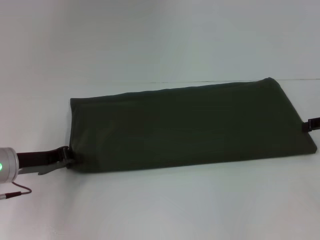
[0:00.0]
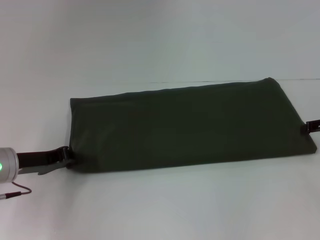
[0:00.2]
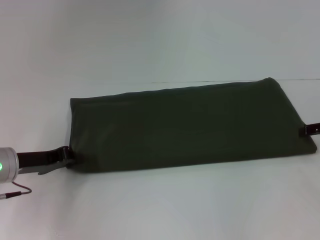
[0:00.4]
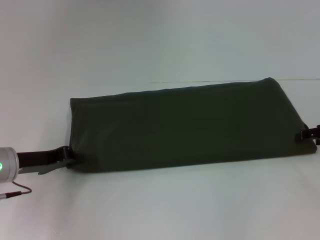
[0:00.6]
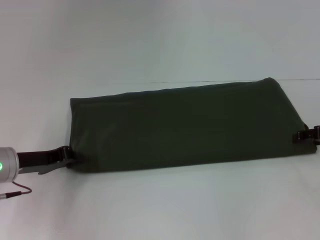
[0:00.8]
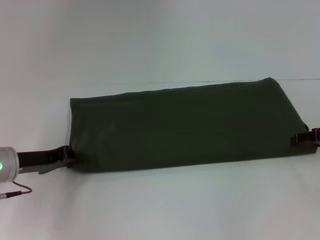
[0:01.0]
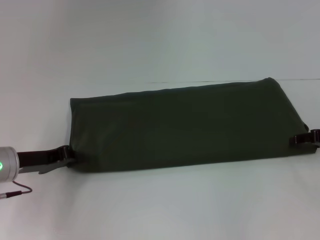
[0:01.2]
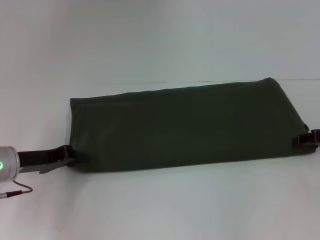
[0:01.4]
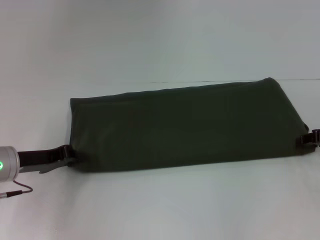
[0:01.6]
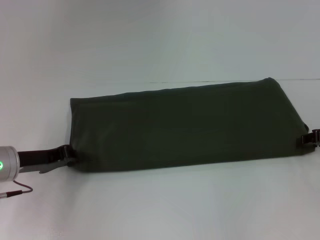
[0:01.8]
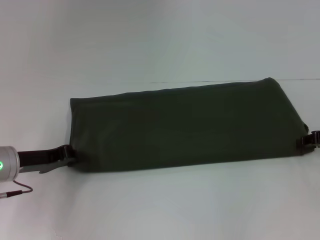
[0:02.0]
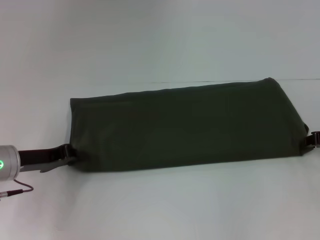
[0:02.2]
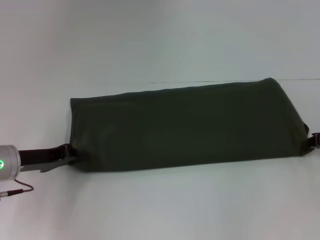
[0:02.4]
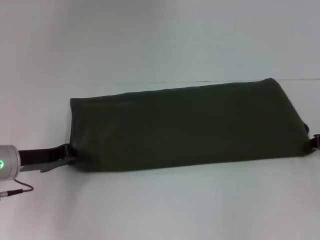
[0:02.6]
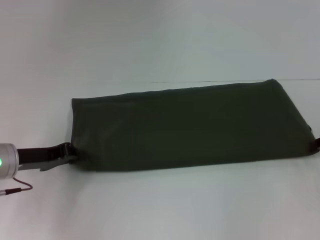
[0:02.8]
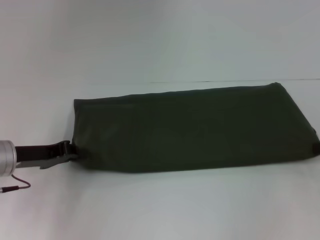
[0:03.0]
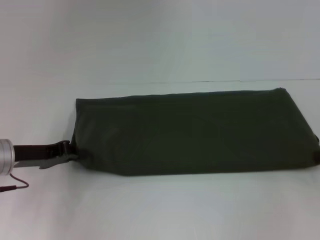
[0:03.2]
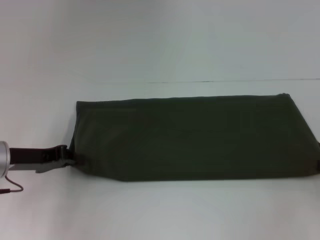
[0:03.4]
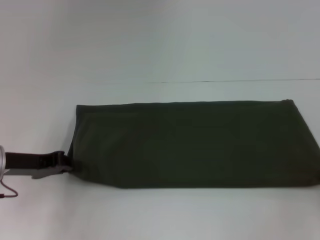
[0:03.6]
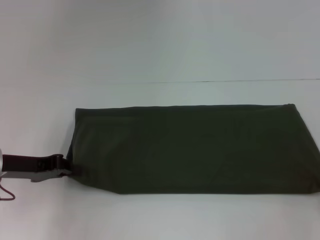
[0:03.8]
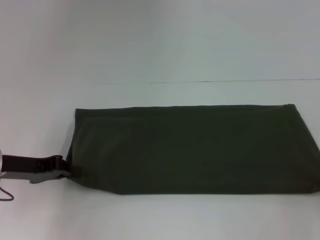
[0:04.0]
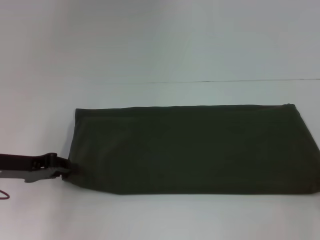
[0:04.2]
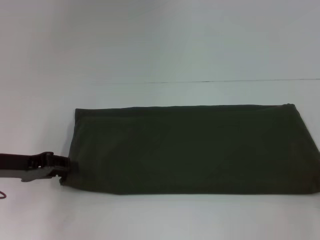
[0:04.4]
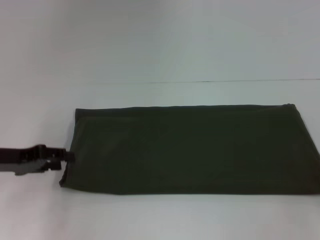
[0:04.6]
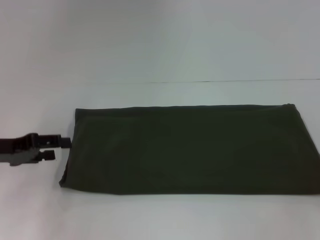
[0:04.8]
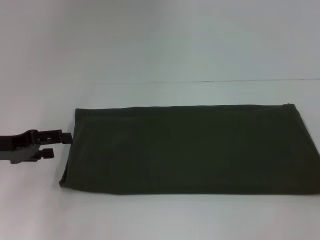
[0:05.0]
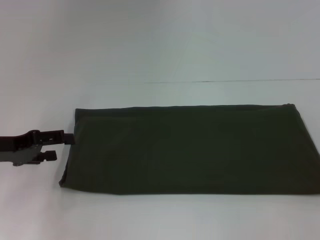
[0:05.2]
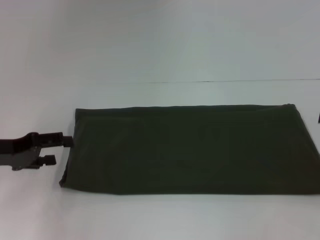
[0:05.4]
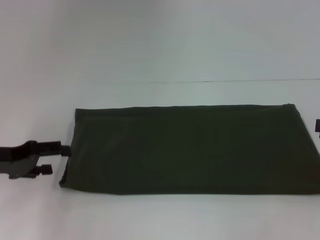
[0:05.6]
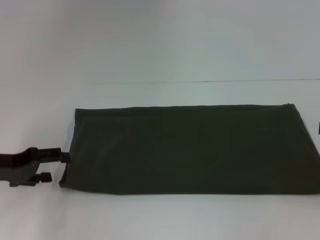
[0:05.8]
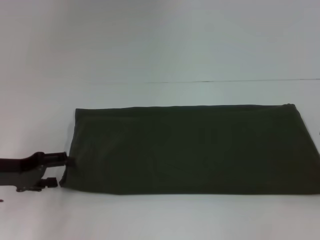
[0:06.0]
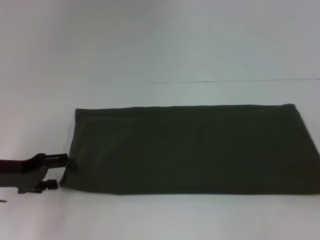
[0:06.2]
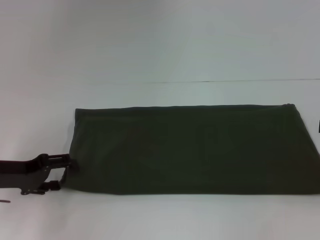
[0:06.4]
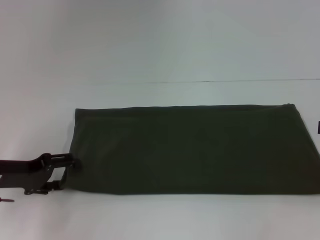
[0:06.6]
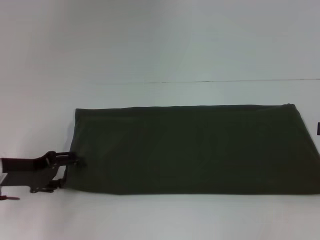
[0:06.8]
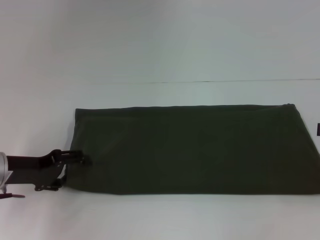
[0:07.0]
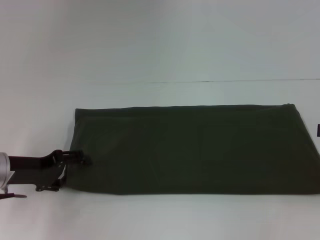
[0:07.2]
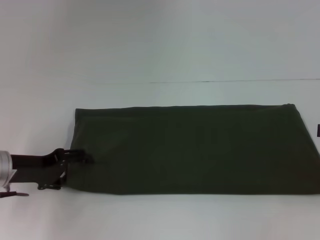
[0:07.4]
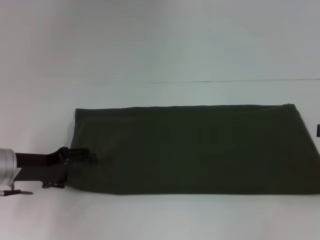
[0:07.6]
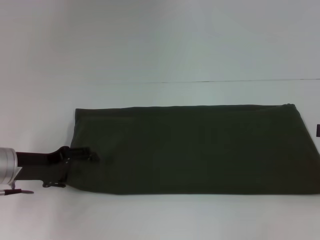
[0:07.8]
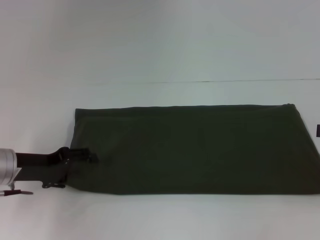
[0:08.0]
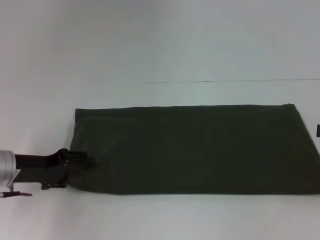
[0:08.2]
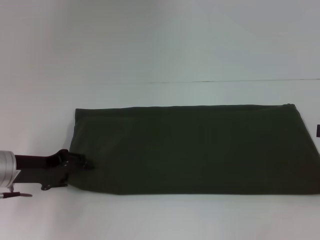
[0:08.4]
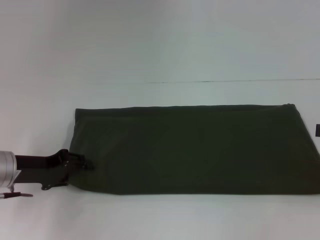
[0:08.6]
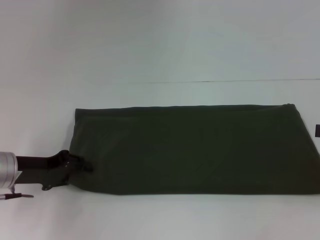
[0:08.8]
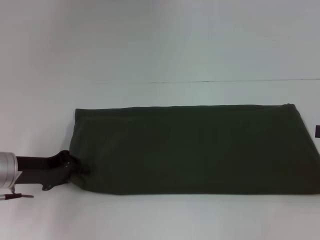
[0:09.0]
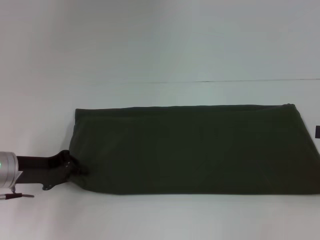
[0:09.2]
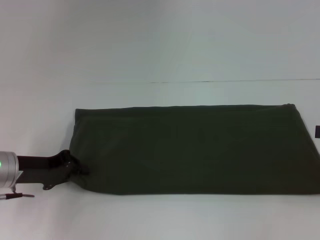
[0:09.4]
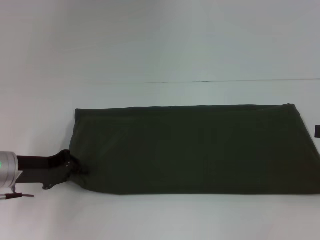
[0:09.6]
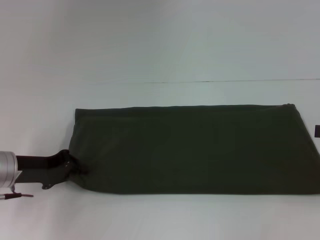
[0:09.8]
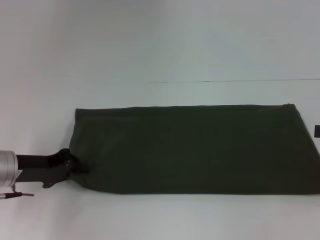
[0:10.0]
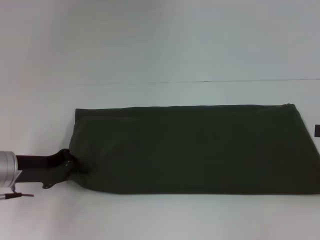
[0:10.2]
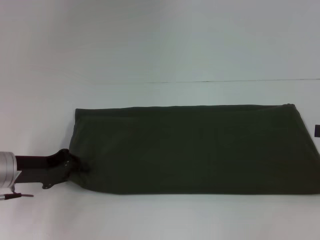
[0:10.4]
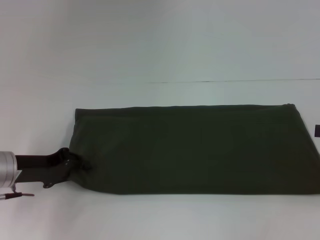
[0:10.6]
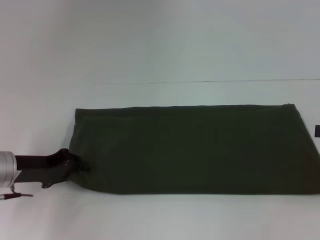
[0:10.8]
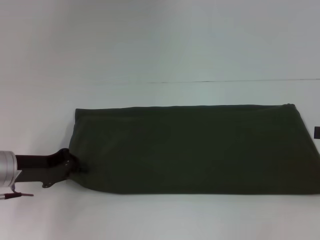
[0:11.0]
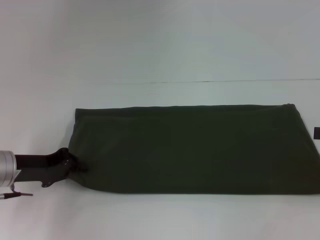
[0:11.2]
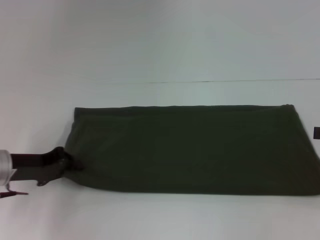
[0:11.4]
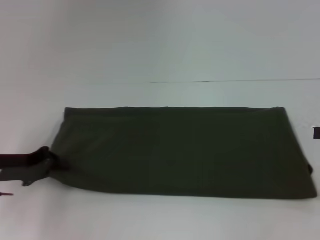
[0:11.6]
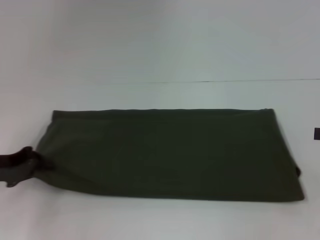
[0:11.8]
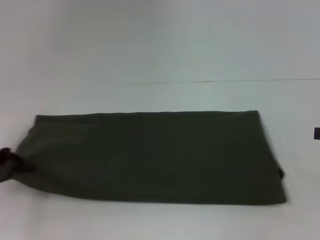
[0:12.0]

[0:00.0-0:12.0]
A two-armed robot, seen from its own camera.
Step, 0:00.0 to 0:04.4: Pull the clothes with your left hand.
Step, 0:00.0 to 0:04.4: Pull the clothes with your right hand.
0:00.0 to 0:01.6: The grippers make only small movements.
0:01.6 to 0:03.0: The right gripper closes up.
0:03.0 to 0:04.4: The right gripper goes some 5 cm backward.
0:04.4 to 0:06.0: The left gripper opens.
0:06.0 to 0:07.6: The grippers make only small movements.
0:07.6 to 0:09.0: The left gripper closes its fingers.
0:09.0 to 0:10.4: Both grippers stay put.
0:10.4 to 0:12.0: The left gripper moves to the left, some 10 cm.

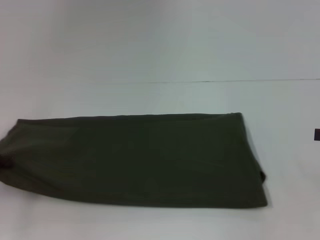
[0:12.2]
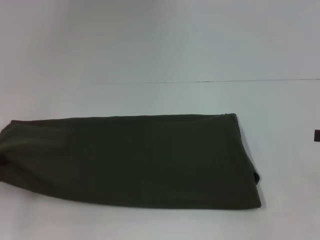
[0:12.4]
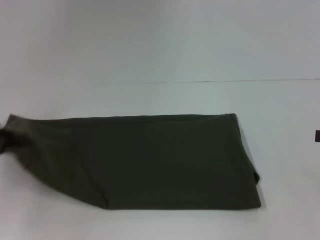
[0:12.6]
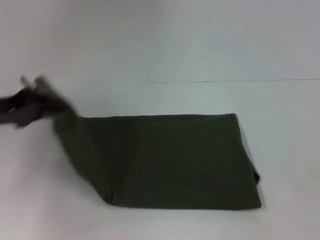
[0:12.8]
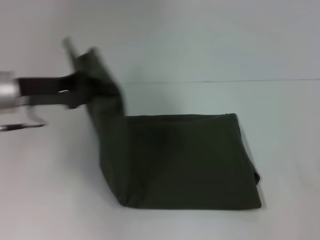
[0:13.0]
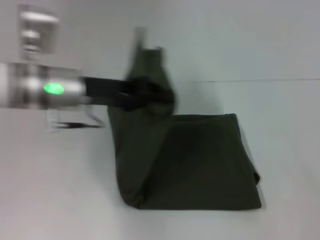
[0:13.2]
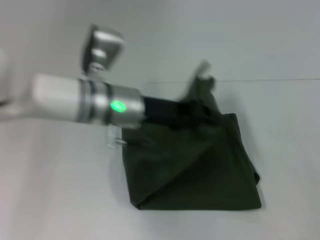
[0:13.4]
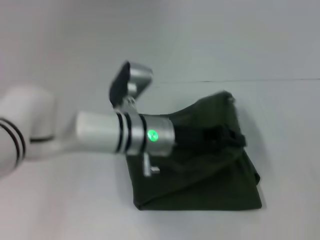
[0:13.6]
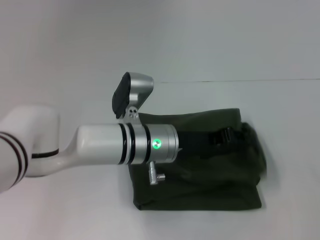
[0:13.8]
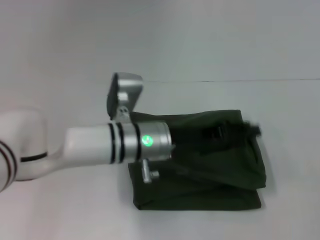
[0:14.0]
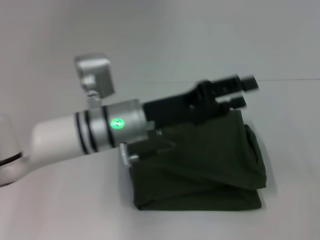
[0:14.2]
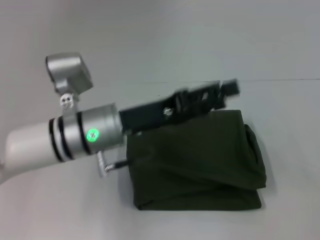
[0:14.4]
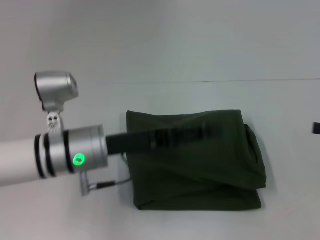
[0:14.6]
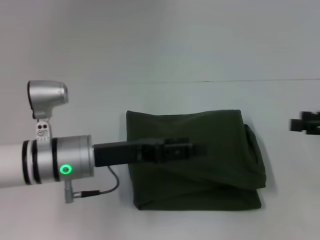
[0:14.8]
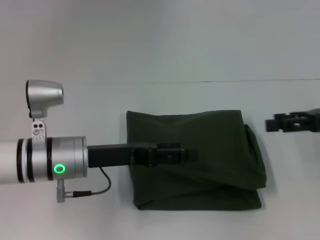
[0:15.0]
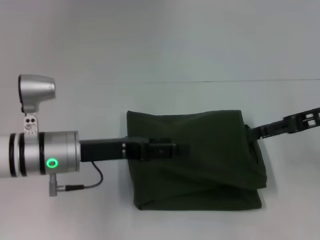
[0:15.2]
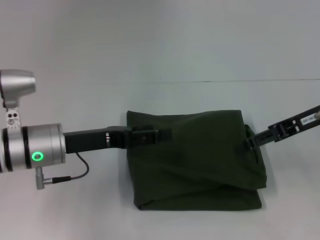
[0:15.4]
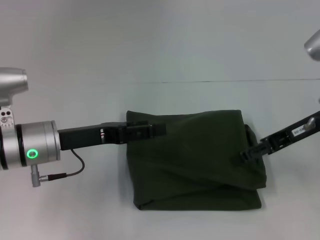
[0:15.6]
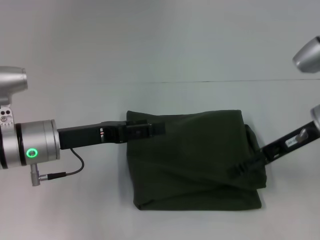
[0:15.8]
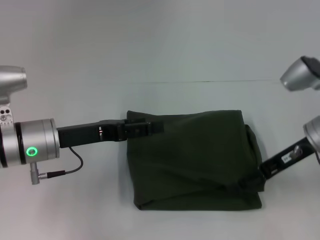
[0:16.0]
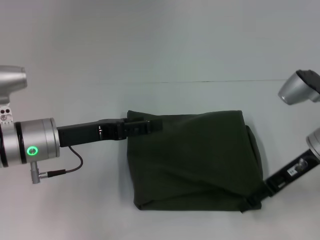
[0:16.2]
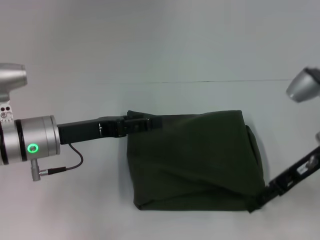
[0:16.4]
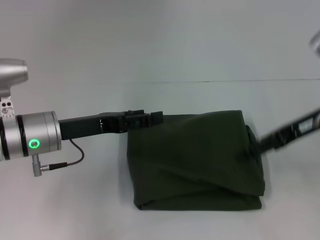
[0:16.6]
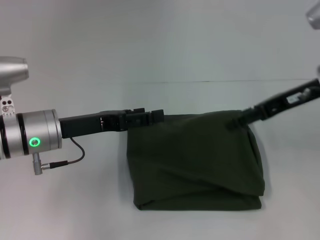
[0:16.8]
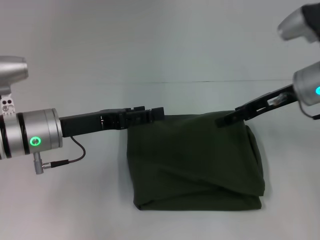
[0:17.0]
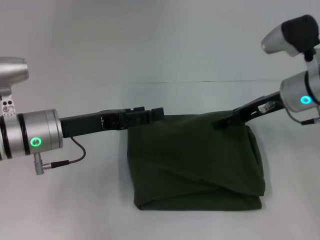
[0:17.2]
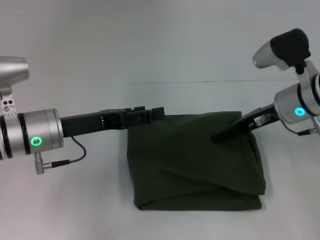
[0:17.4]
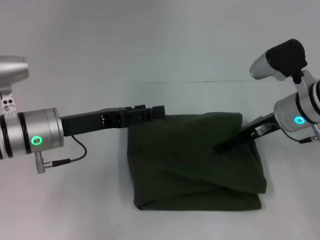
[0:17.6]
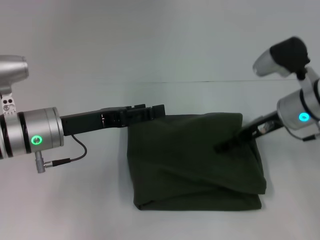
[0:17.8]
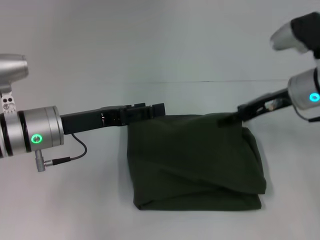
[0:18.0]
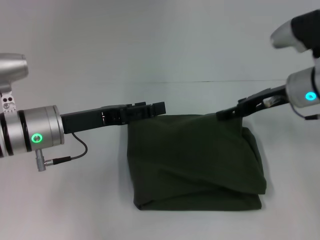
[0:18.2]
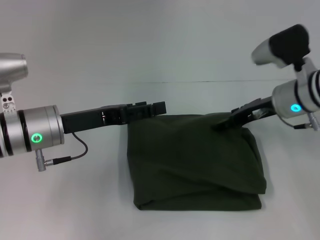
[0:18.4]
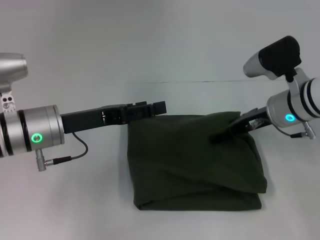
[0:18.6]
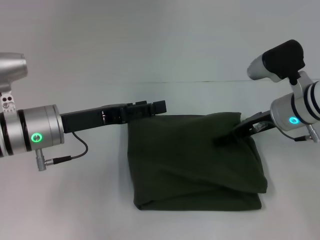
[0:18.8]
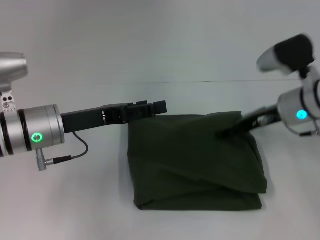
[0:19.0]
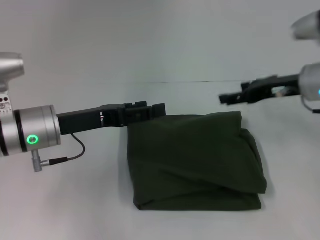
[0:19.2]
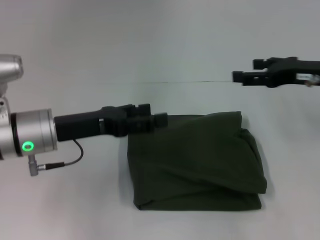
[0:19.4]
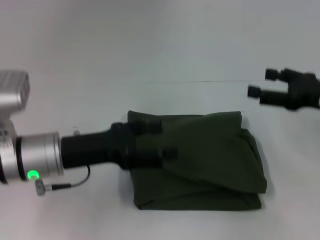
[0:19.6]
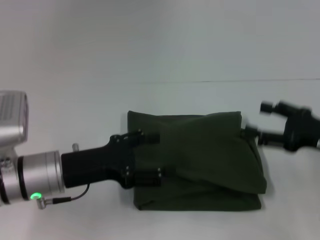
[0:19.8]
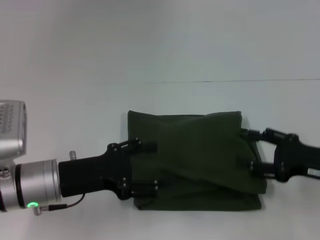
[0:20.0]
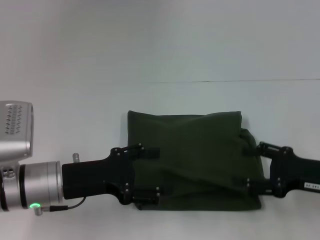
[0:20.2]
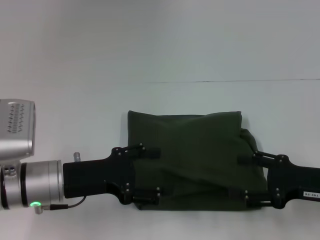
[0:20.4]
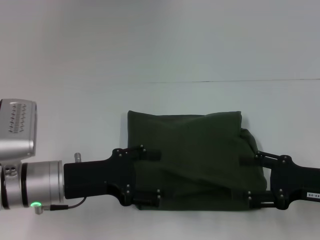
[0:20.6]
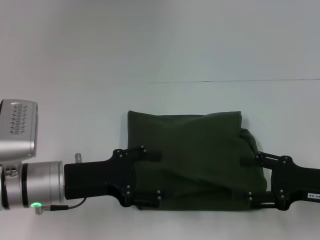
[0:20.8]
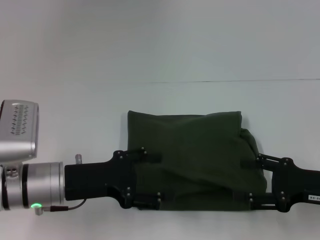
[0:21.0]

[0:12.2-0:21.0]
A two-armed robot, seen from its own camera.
0:12.2 to 0:13.6: The left gripper shifts roughly 35 cm to the right.
0:13.6 to 0:15.2: The left gripper is displaced to the left by roughly 10 cm, and opens up, while the right gripper travels to the left, forward and upward by some 15 cm.
0:16.6 to 0:18.0: The right gripper shifts by roughly 5 cm.
0:18.0 to 0:19.6: The right gripper shifts approximately 10 cm to the right and backward.
0:19.6 to 0:21.0: The right gripper goes approximately 10 cm backward and downward.

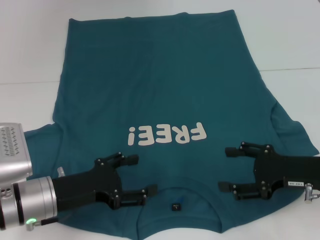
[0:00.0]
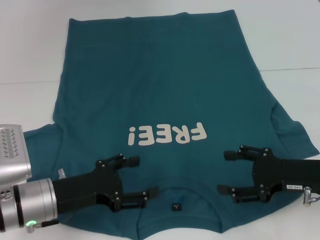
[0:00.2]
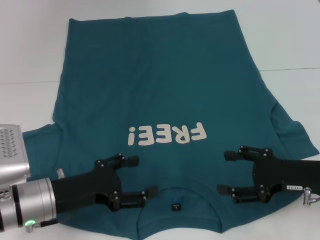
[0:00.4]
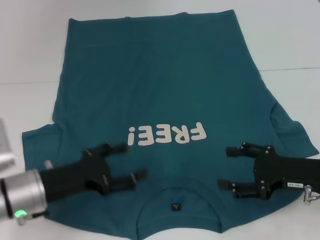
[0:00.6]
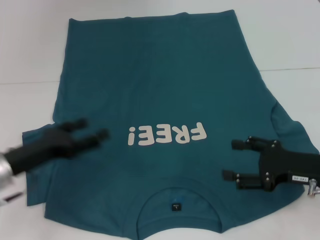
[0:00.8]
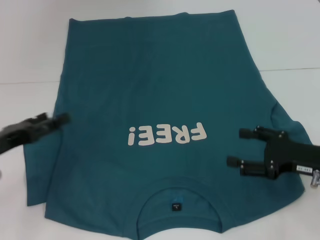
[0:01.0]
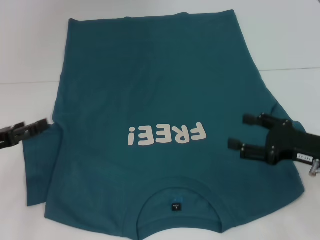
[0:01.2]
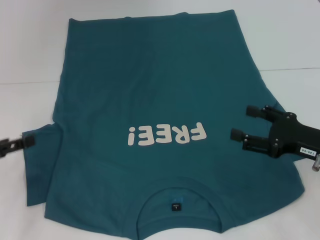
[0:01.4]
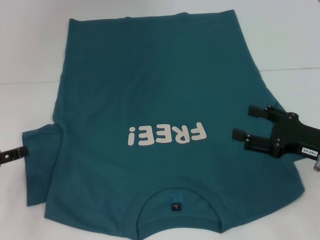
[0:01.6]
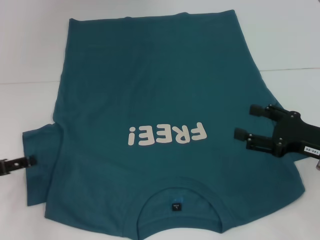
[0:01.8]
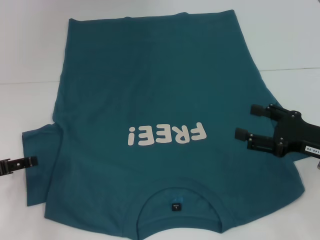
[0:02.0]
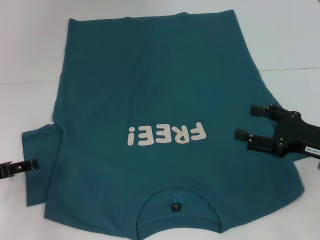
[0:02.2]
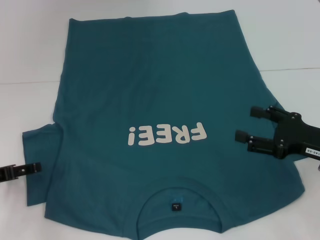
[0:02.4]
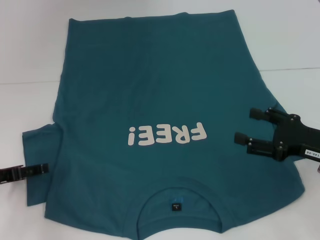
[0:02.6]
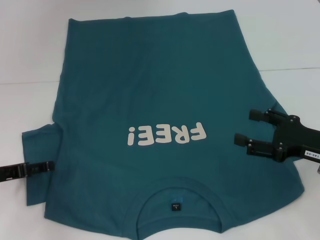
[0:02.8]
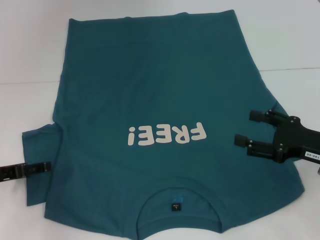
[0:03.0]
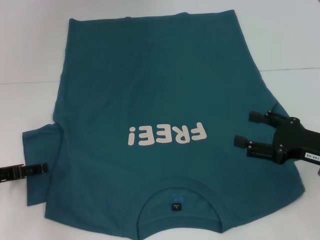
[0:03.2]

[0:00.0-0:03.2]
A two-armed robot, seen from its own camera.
0:00.0 to 0:01.6: The left gripper travels to the left by approximately 15 cm.
0:01.6 to 0:03.2: The grippers stay close to where they were, moving slightly.
